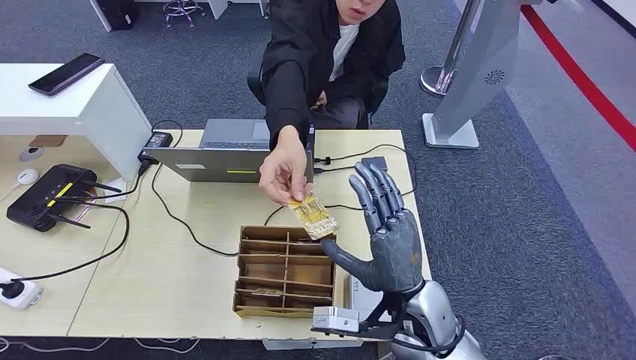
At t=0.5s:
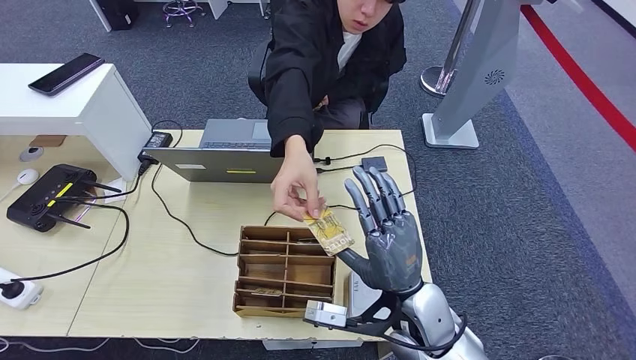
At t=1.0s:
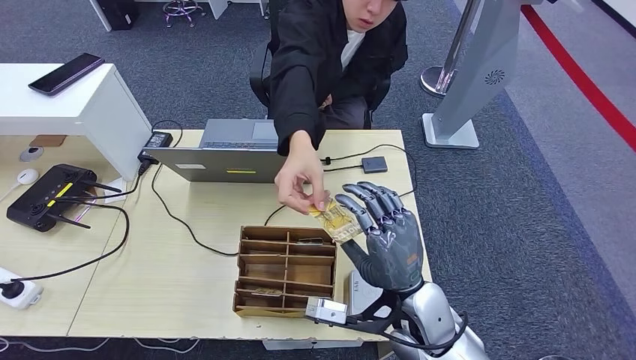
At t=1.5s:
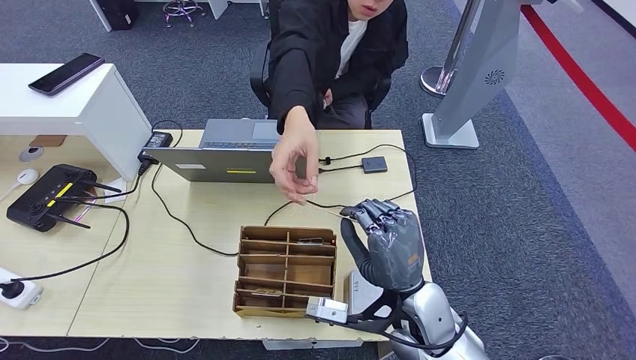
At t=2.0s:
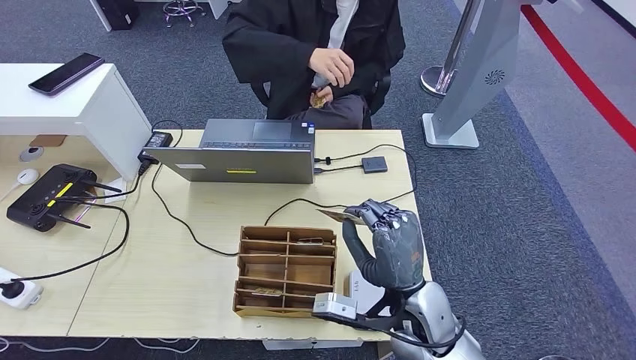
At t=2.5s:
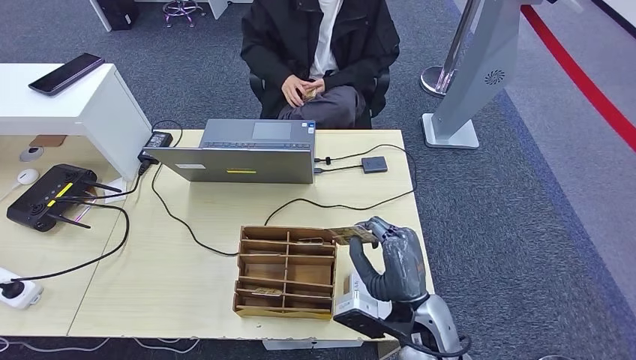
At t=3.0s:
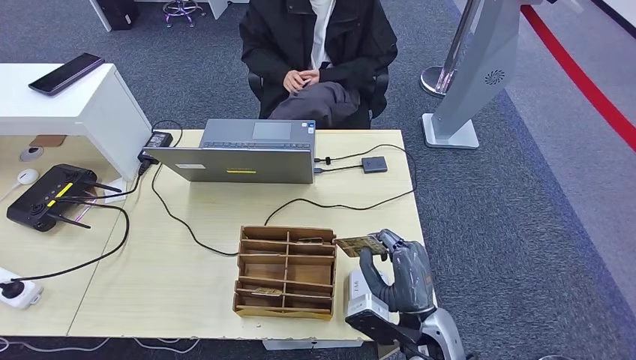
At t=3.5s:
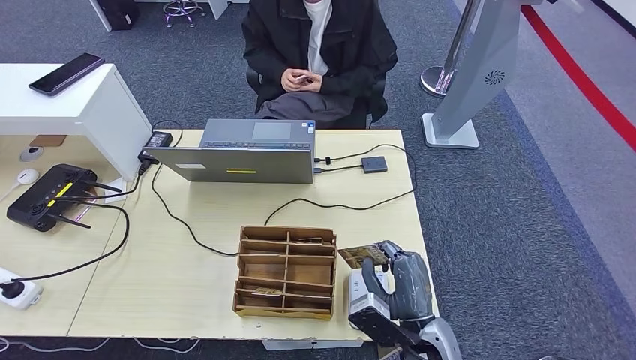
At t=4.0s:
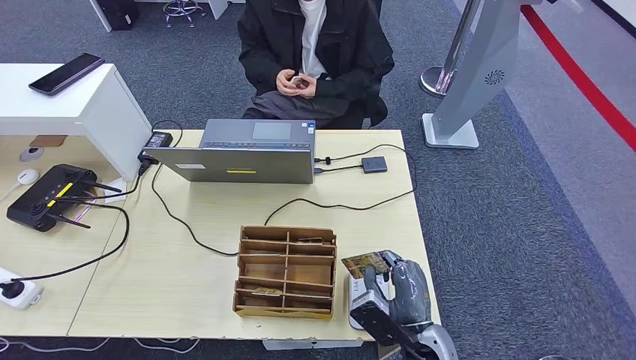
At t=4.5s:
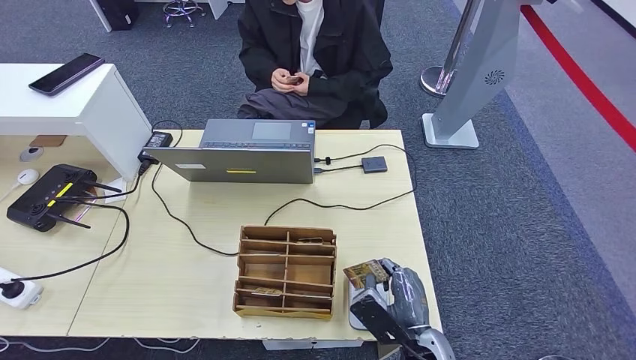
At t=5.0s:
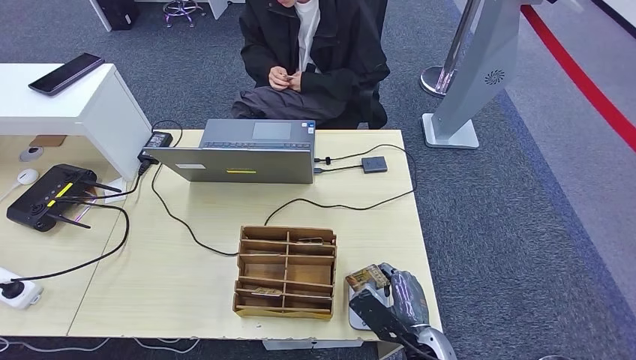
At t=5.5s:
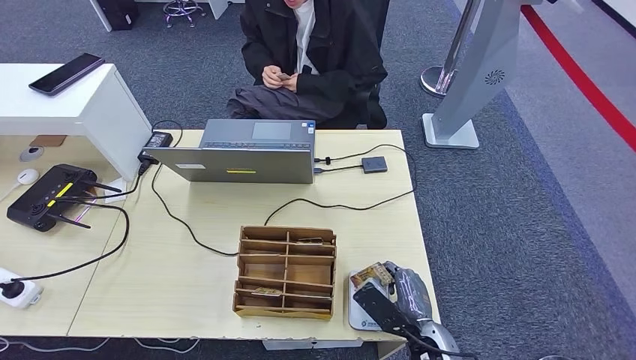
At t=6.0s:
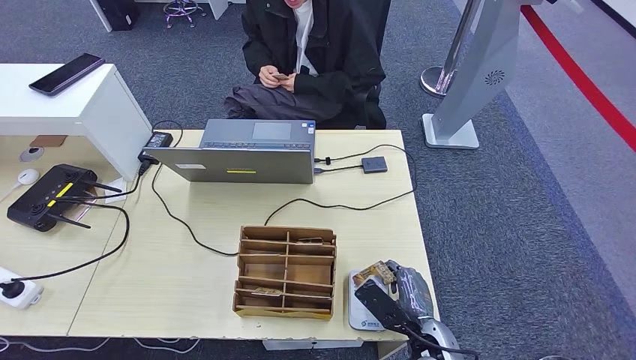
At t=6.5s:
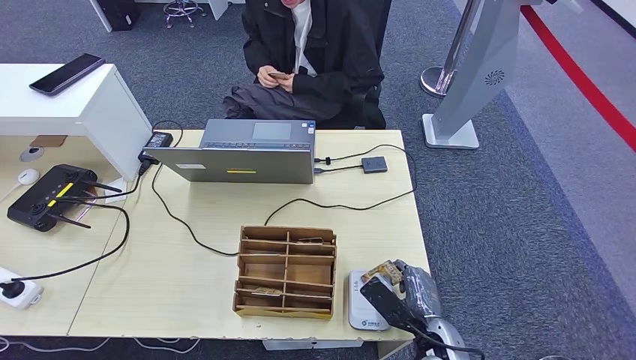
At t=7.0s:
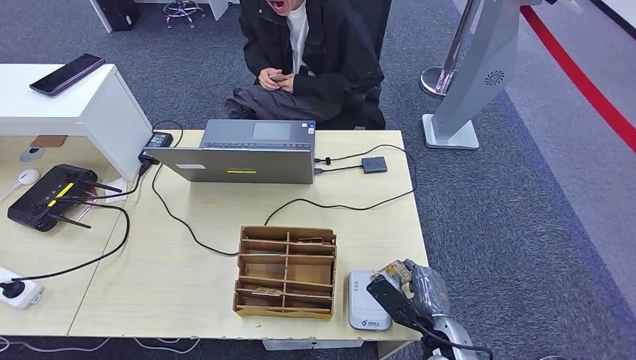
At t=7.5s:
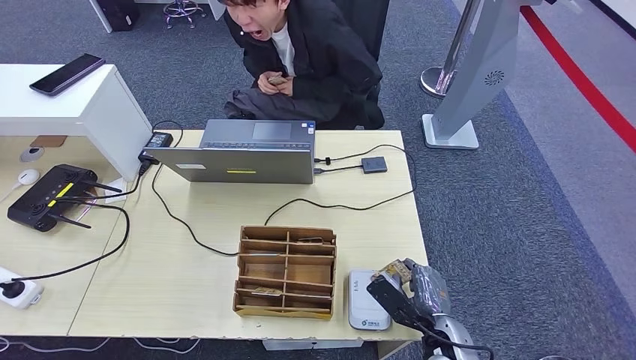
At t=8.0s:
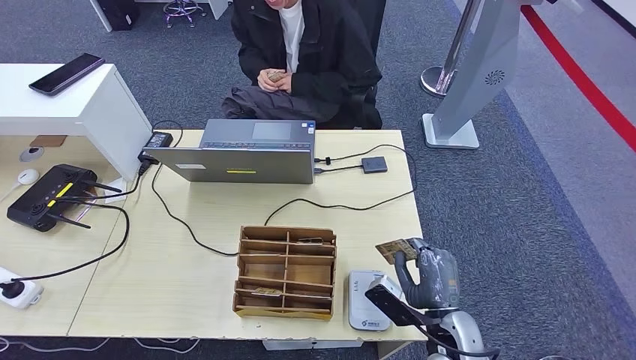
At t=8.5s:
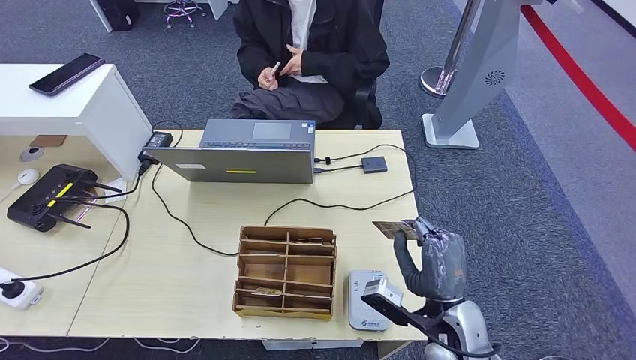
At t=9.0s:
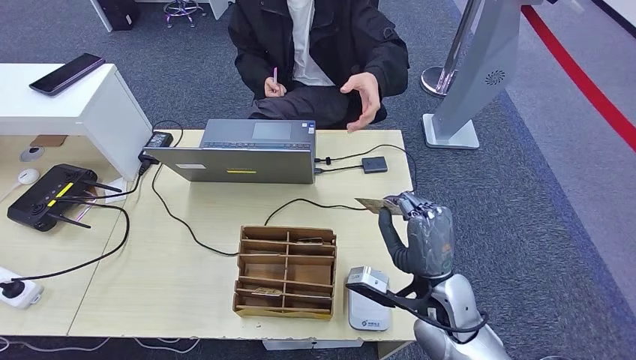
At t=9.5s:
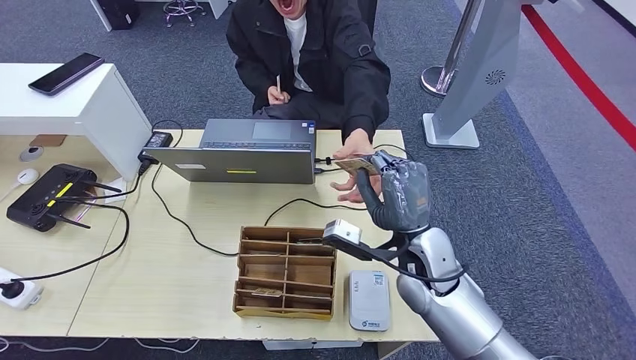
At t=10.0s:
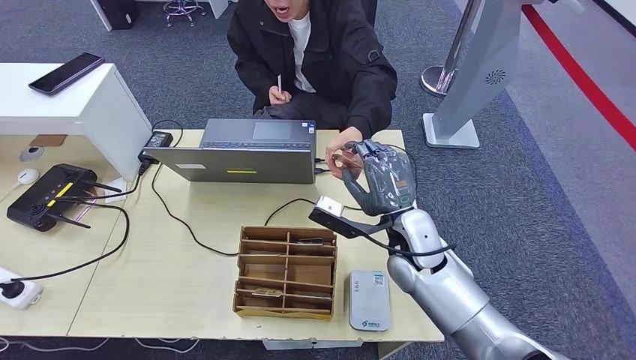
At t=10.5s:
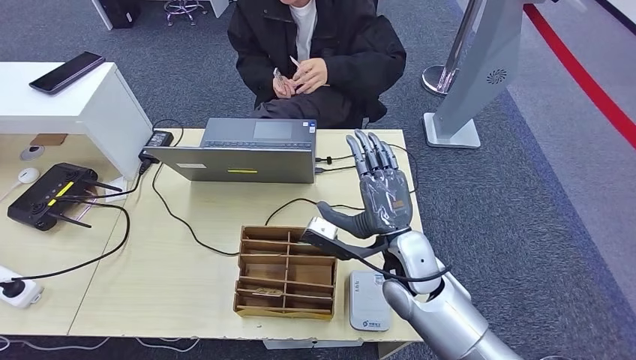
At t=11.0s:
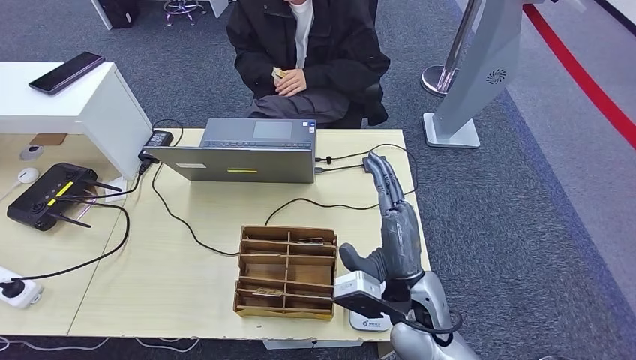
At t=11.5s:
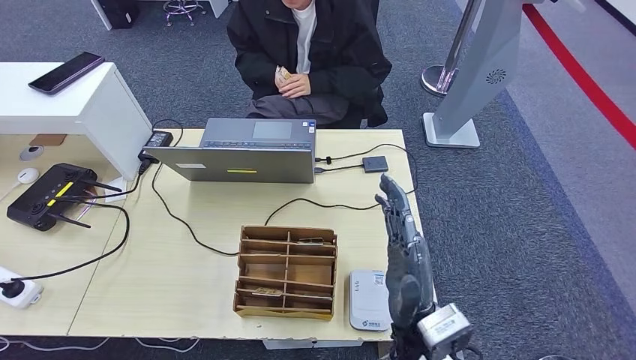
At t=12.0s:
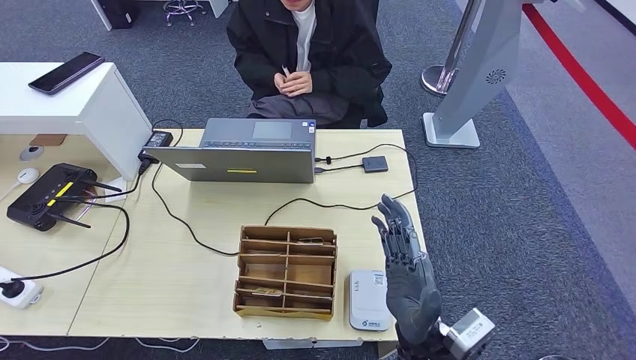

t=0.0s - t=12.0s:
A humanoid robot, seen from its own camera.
Step, t=0.0s - t=1.0s: Take the ID card from the person's hand.
Step, t=1.5s - t=3.5s: Place the ID card on the card reader.
Step, t=4.5s - t=11.0s: Hand the ID card to the person.
t=2.0s - t=4.0s: The right hand heads downward and backward, covering approximately 10 cm.
t=4.0s - t=6.0s: The left hand goes about 15 cm backward and to the left.
t=8.0s - t=10.0s: The right hand goes some 20 cm forward, upward and to the left.
t=10.0s - t=12.0s: The left hand is displaced forward and to the right by approximately 15 cm, while the right hand travels backward by about 15 cm.

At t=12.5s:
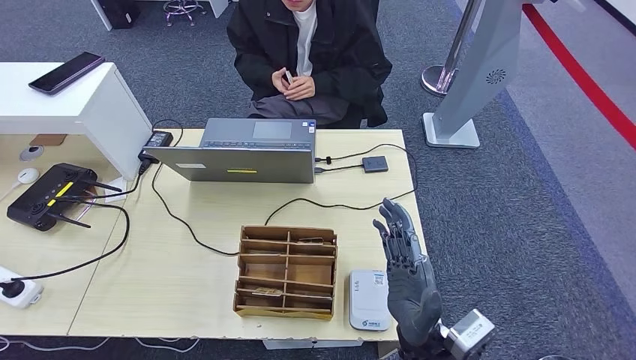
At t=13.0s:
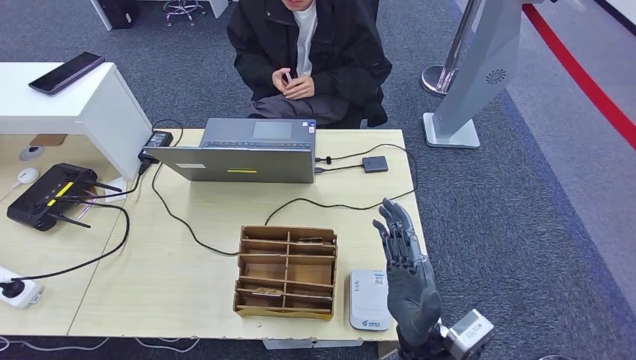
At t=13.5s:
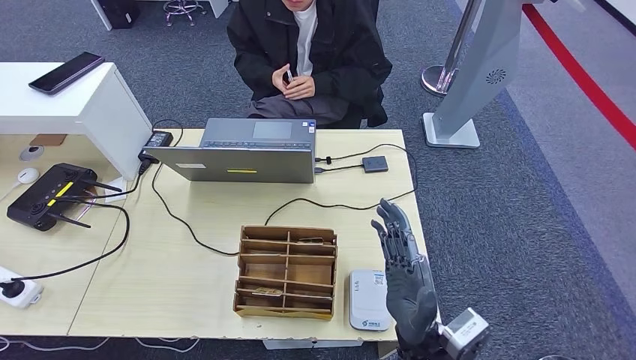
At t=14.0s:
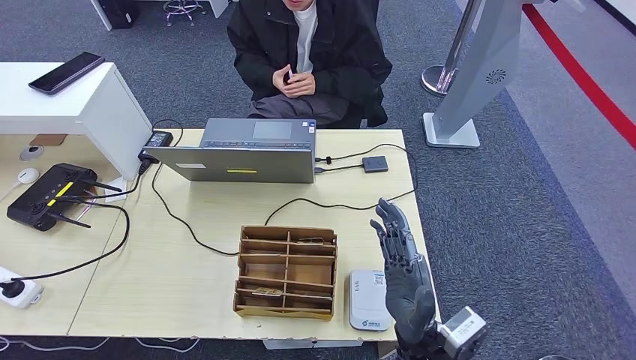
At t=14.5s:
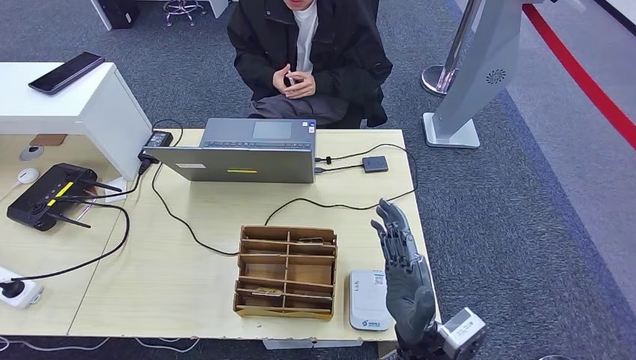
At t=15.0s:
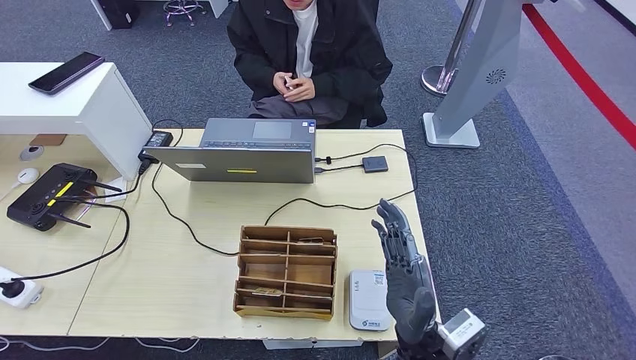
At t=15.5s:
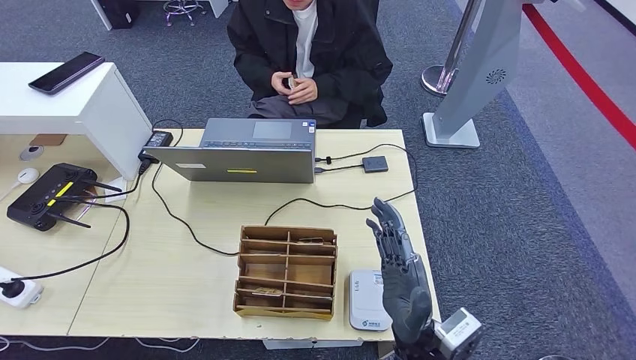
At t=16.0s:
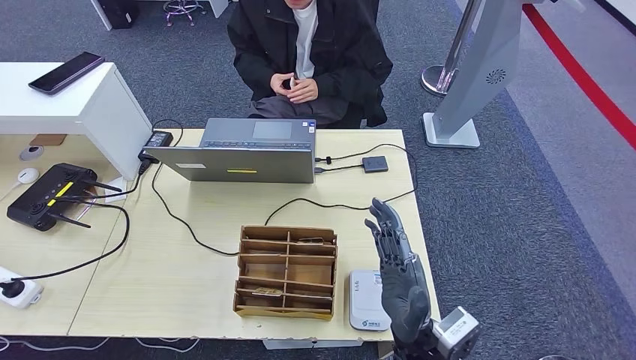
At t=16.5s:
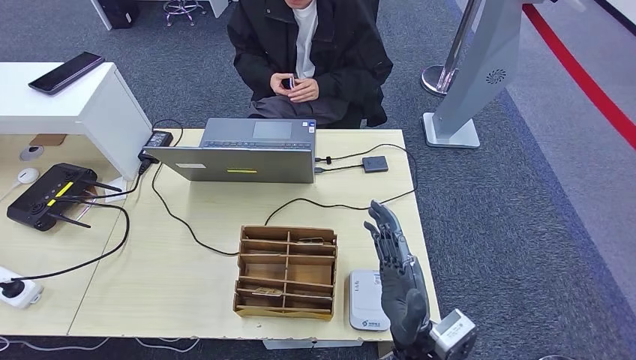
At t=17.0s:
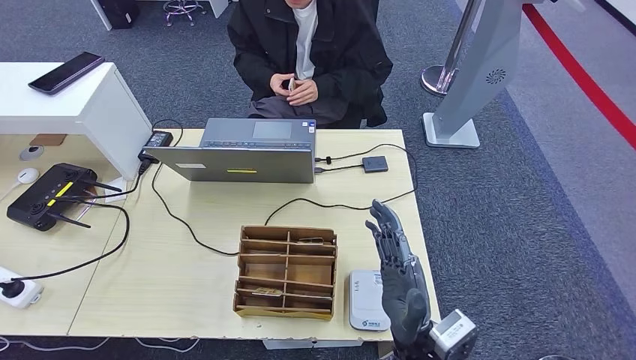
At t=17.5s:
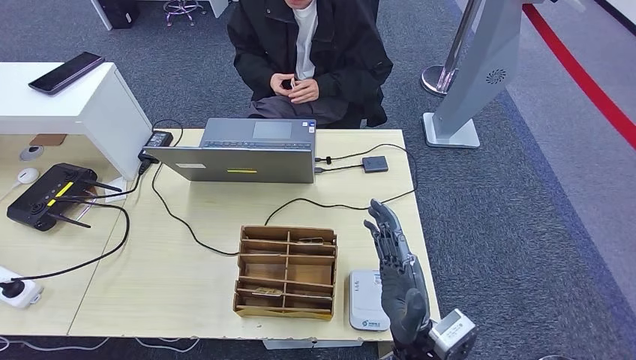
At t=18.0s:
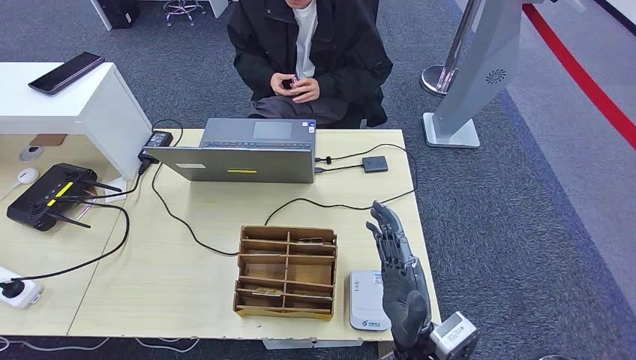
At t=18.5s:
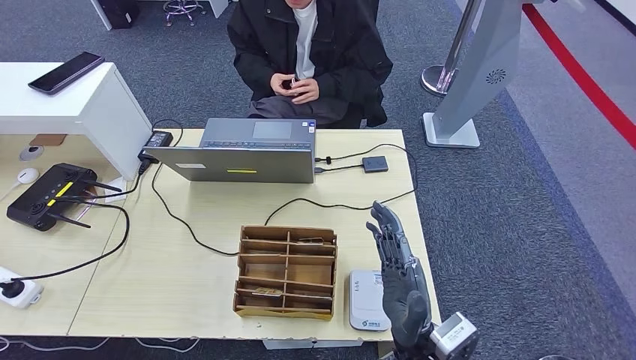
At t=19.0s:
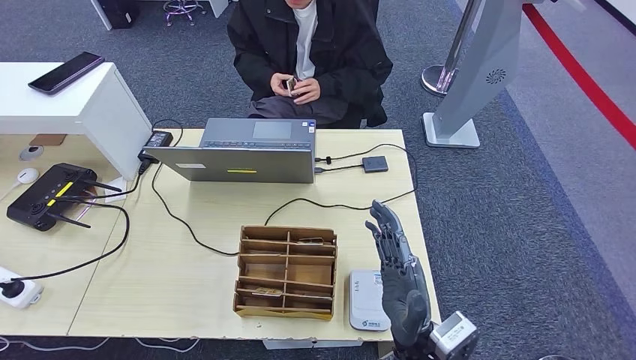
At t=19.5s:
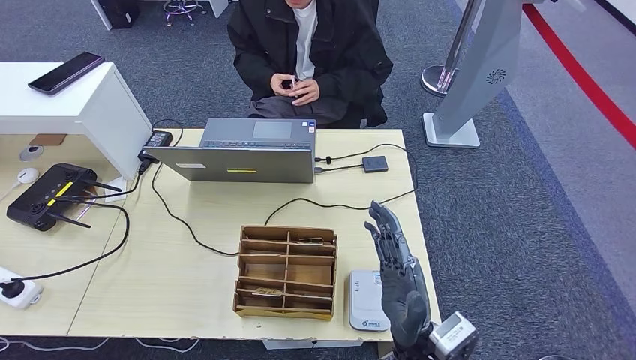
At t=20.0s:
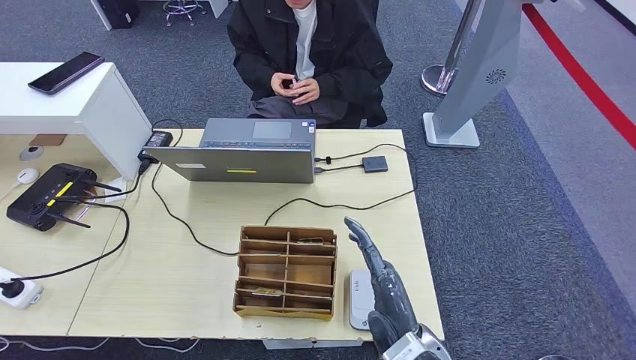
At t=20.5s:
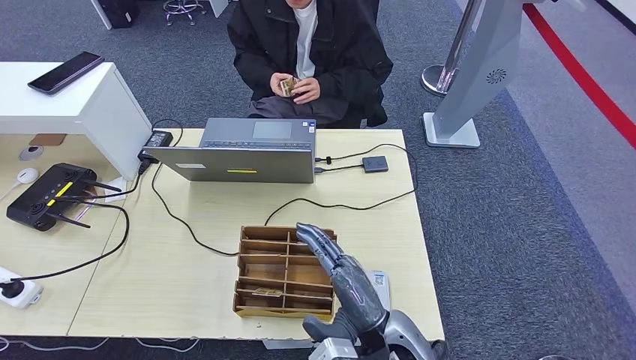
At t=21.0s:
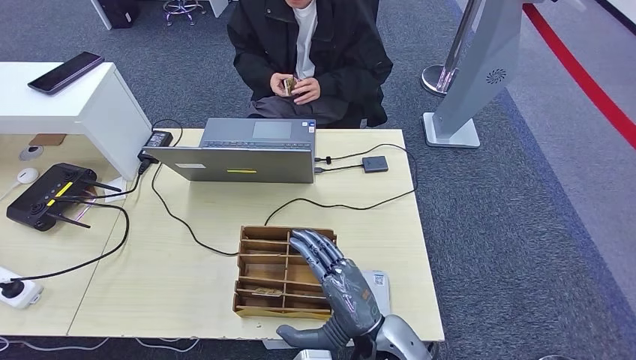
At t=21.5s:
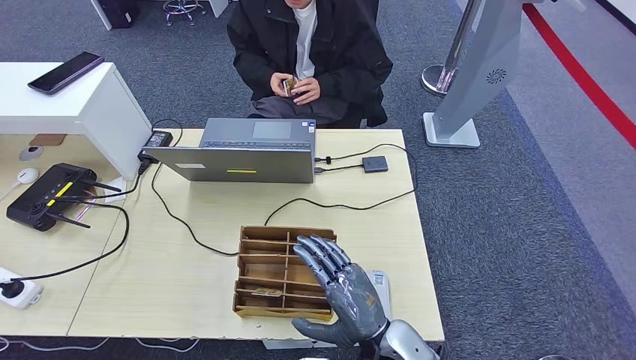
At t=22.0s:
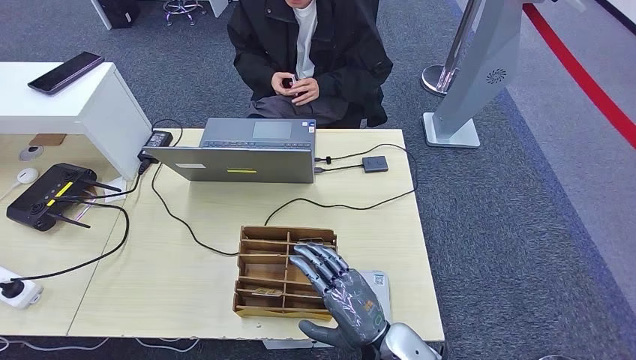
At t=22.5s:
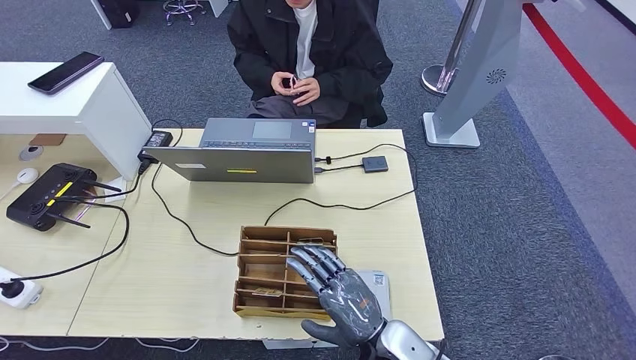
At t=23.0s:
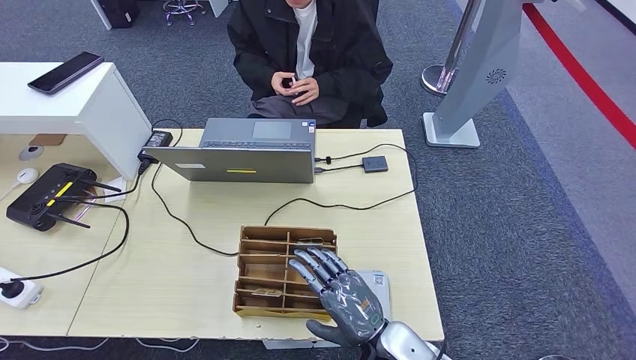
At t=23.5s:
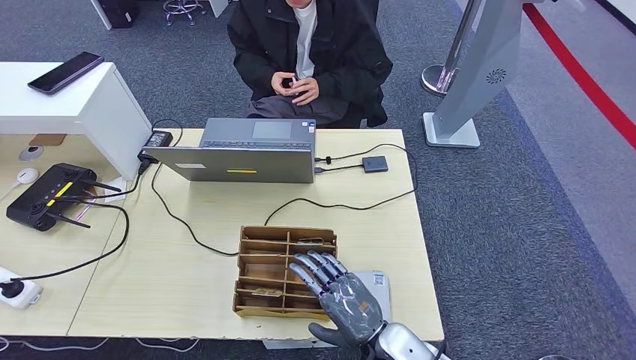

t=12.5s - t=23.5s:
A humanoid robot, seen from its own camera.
Step, t=12.5s - t=18.0s: Pick up the room key from the key card box.
t=12.5s - t=18.0s: Neither hand changes place.
t=18.0s - t=20.0s: The hands stay close to where they were, moving slightly.
t=21.5s - t=23.5s: The hands make only small movements.
